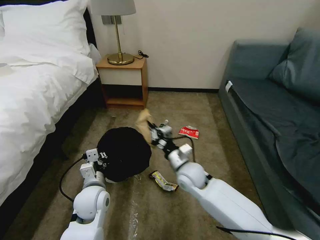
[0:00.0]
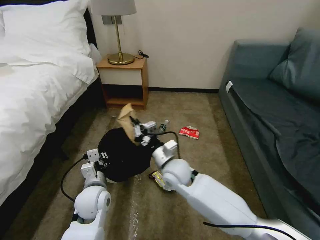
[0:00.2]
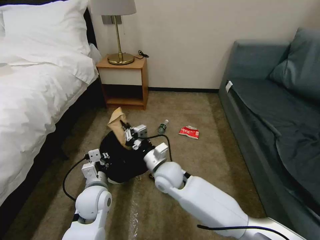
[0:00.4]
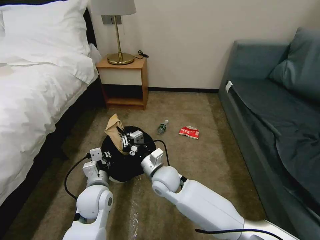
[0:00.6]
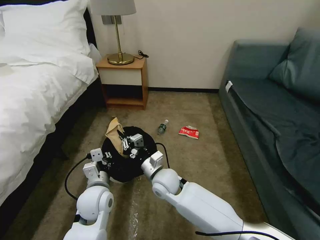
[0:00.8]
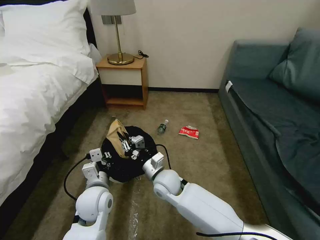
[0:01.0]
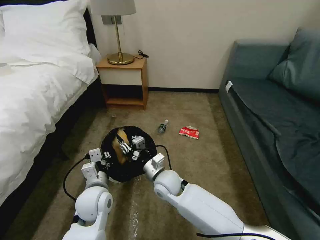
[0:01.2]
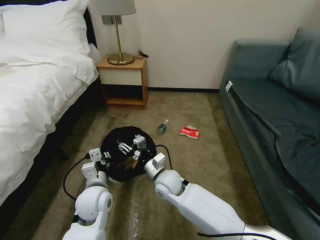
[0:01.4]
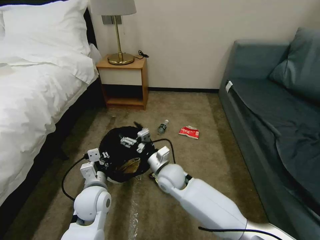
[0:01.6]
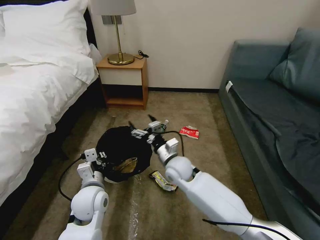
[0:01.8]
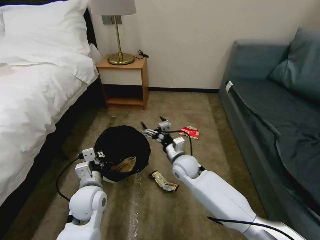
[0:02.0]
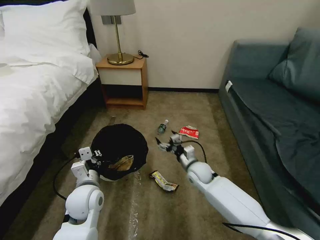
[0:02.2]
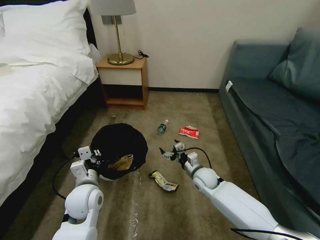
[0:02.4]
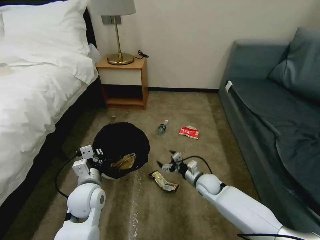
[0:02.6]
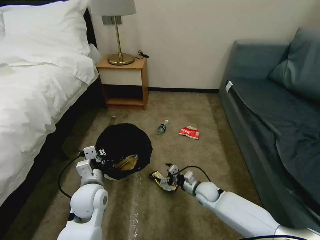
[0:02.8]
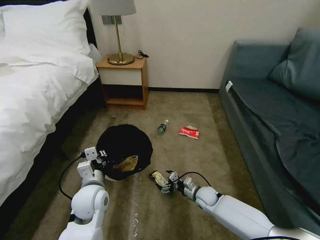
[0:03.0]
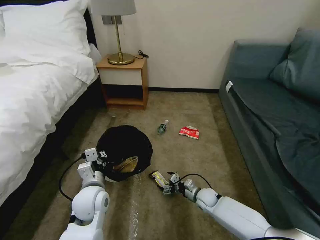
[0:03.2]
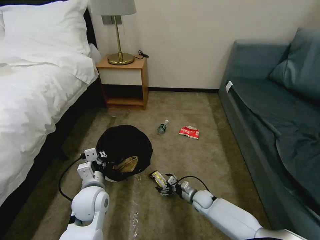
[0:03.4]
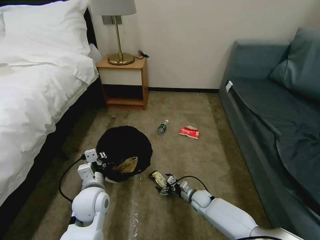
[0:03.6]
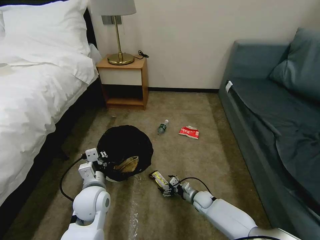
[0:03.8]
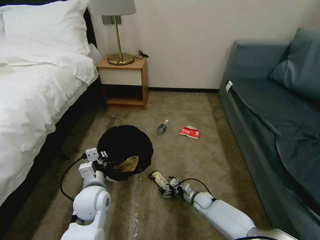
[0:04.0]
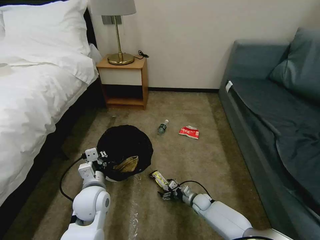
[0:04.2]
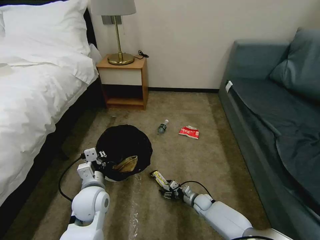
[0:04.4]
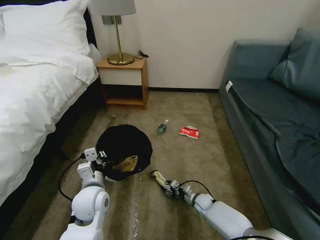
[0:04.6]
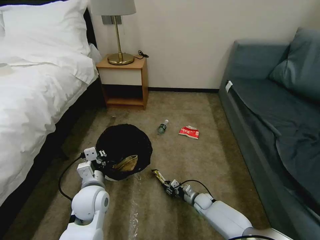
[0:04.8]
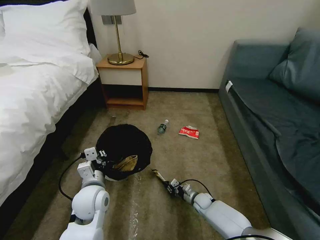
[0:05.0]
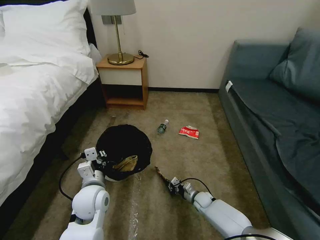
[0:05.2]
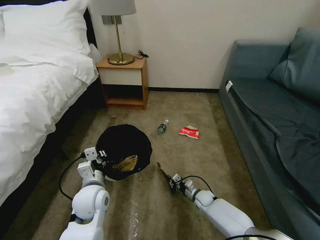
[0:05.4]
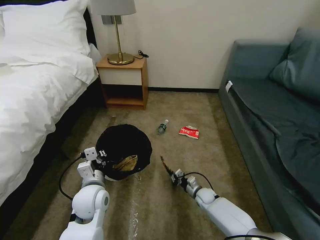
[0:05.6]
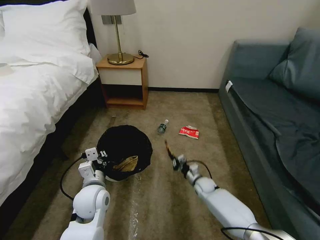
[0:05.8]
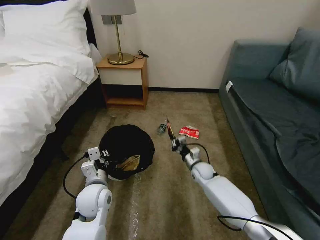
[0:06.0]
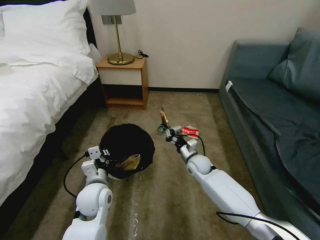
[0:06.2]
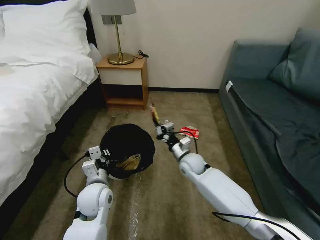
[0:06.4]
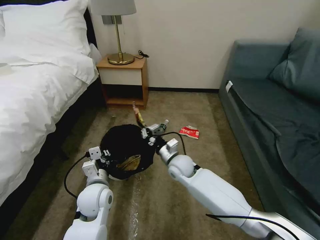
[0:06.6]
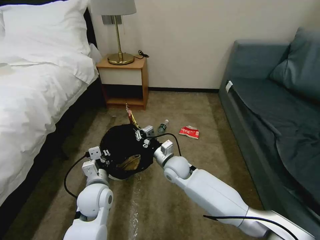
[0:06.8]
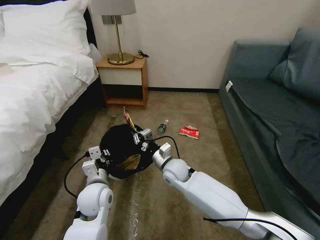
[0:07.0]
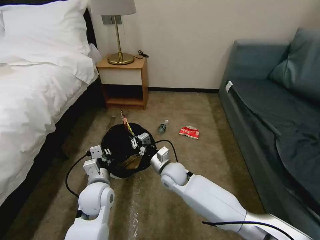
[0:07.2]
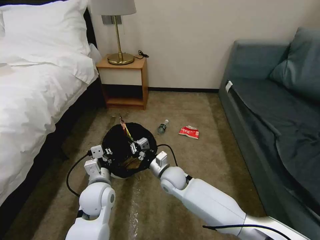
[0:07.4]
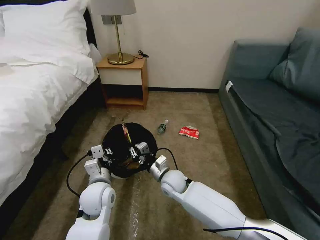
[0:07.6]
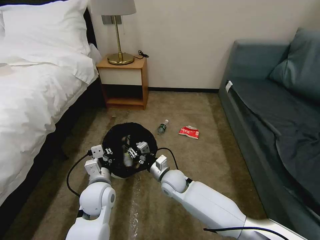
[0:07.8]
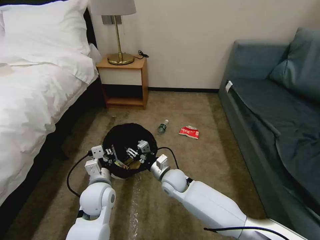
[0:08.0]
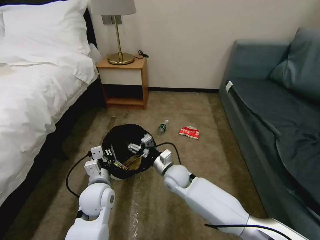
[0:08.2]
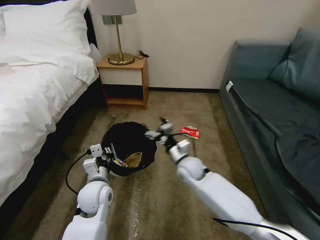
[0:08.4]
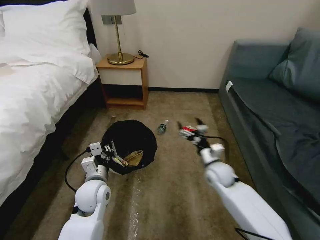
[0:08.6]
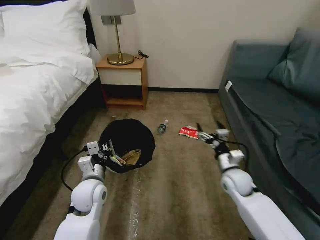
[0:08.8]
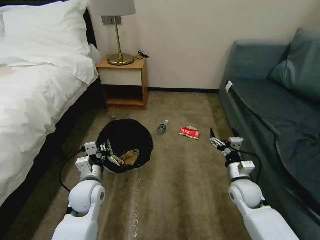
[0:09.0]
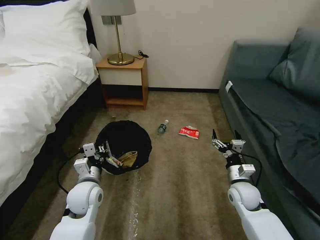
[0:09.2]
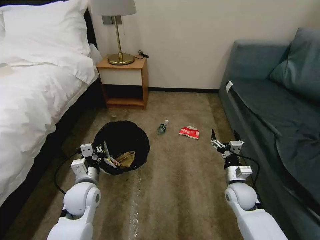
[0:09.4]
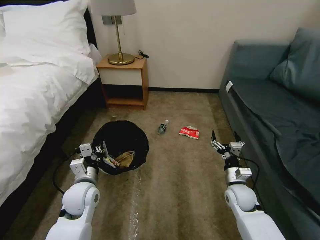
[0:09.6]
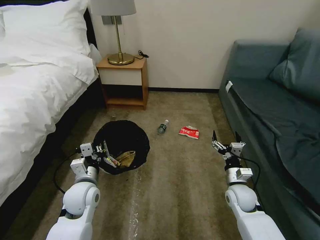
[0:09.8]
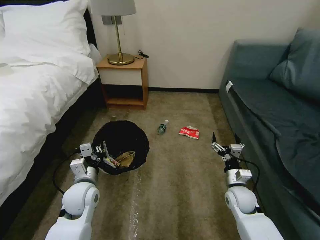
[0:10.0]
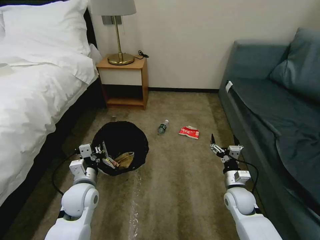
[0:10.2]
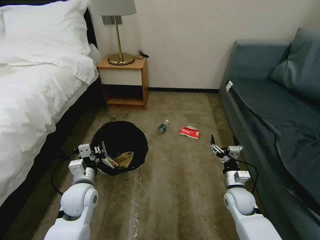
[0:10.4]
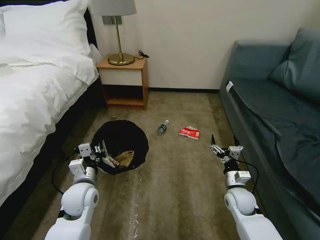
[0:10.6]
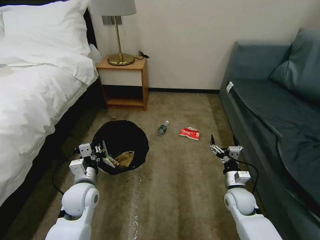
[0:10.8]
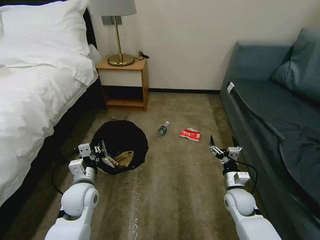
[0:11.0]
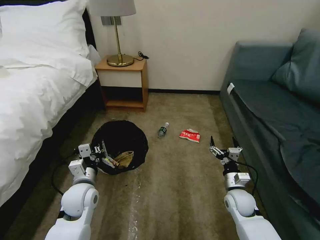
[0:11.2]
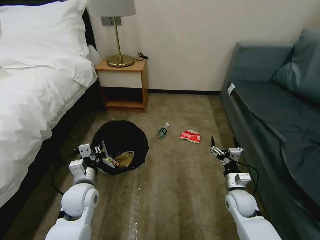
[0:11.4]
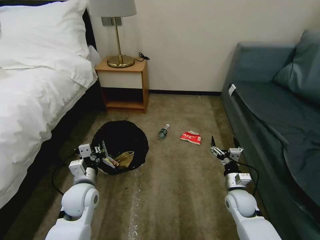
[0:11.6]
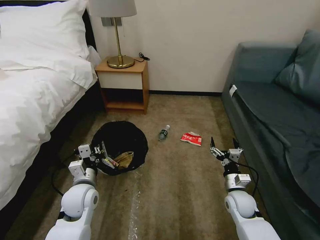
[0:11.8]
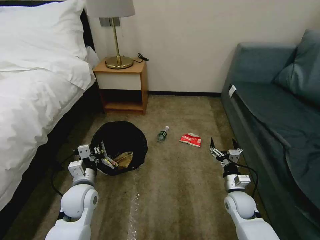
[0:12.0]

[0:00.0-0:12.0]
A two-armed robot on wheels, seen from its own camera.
Task of the whole recording: Pick up the trash bin, then pick up the garbage on the floor and place it into the trash bin.
0:00.0 to 0:01.6: The right gripper heads to the left, covering approximately 10 cm, and opens up.
0:01.6 to 0:03.0: The right gripper goes approximately 25 cm downward and to the right.
0:03.0 to 0:04.4: The right gripper goes roughly 10 cm downward.
0:04.4 to 0:06.0: The right gripper is displaced upward and forward by roughly 20 cm, and closes up.
0:06.0 to 0:07.6: The right gripper travels to the left, backward and upward by some 20 cm.
0:07.6 to 0:09.0: The right gripper moves to the right, about 25 cm, and opens.
0:09.0 to 0:10.4: The grippers stay close to where they were, moving slightly.
0:10.4 to 0:12.0: There are only small adjustments of the grippers.

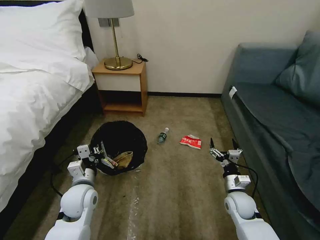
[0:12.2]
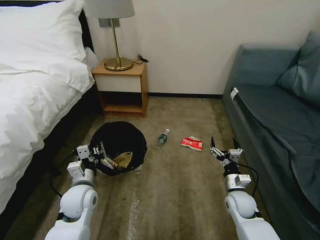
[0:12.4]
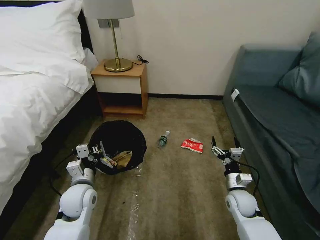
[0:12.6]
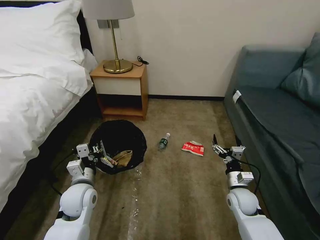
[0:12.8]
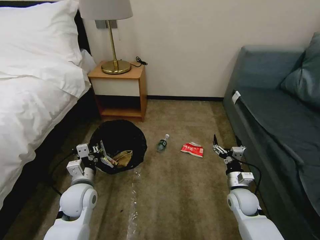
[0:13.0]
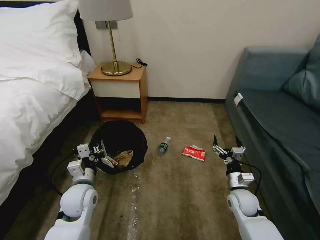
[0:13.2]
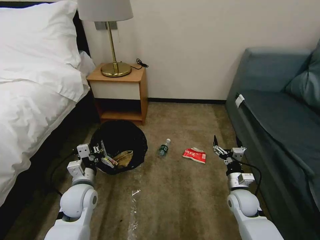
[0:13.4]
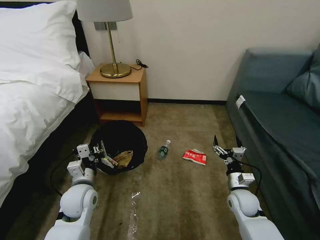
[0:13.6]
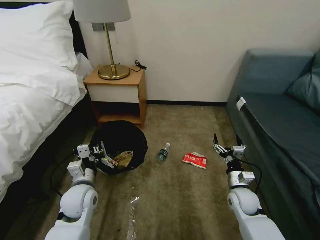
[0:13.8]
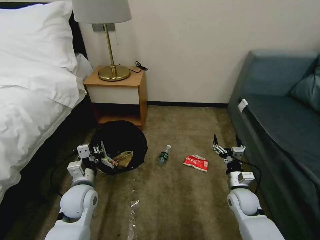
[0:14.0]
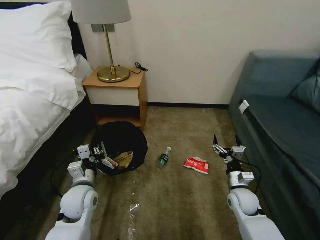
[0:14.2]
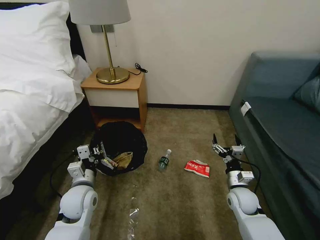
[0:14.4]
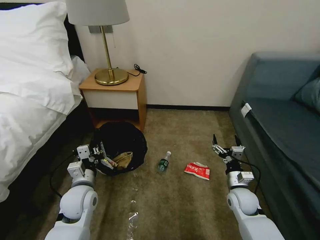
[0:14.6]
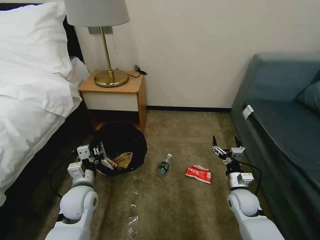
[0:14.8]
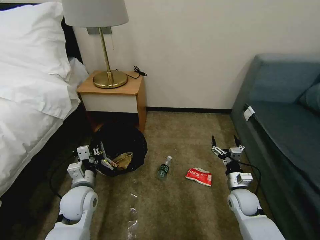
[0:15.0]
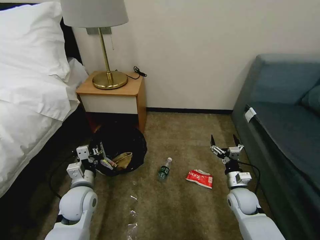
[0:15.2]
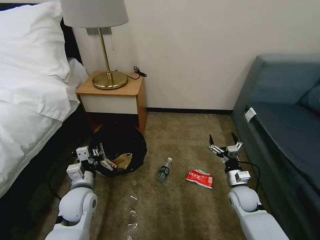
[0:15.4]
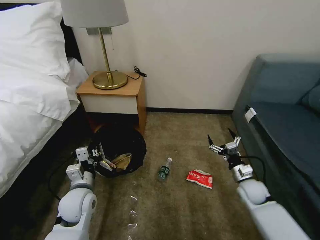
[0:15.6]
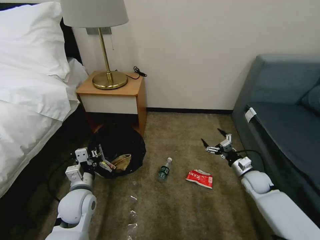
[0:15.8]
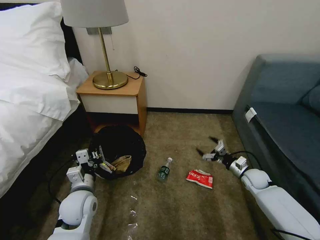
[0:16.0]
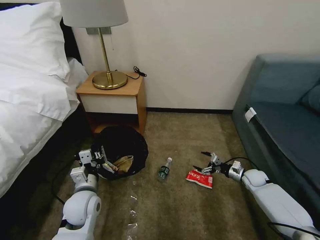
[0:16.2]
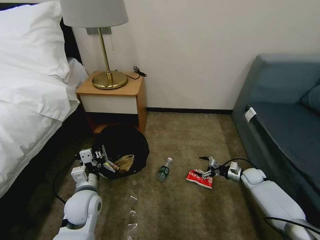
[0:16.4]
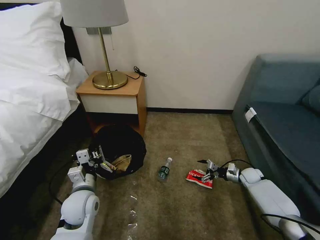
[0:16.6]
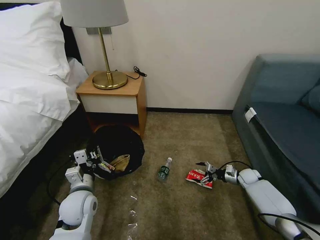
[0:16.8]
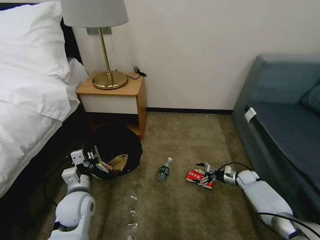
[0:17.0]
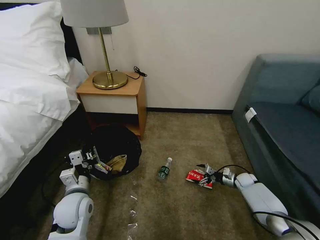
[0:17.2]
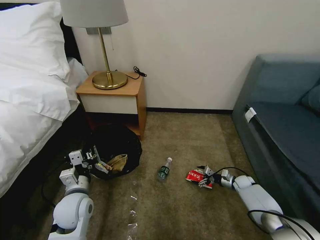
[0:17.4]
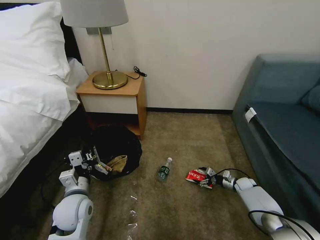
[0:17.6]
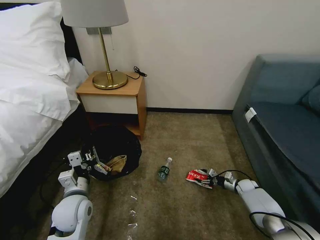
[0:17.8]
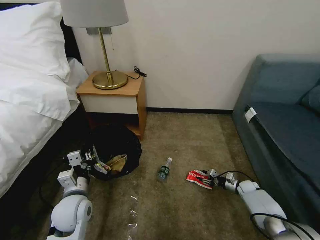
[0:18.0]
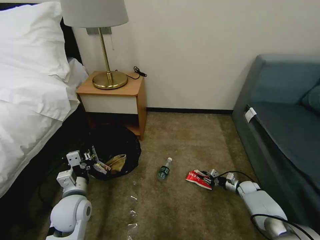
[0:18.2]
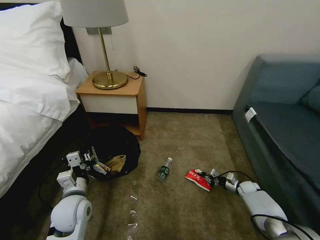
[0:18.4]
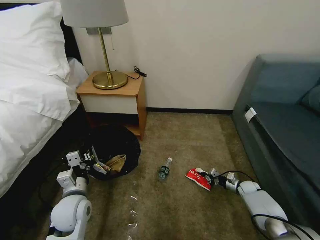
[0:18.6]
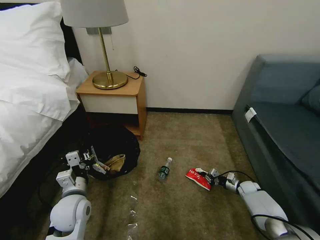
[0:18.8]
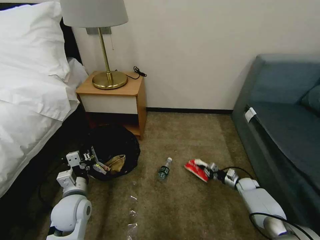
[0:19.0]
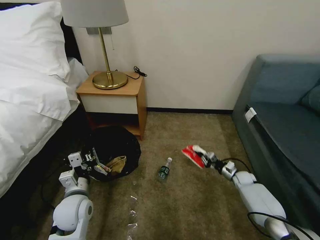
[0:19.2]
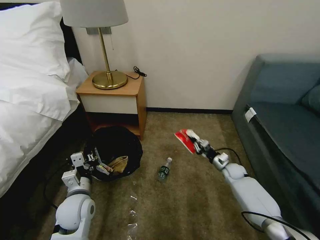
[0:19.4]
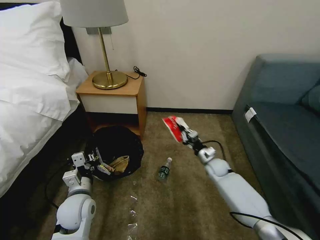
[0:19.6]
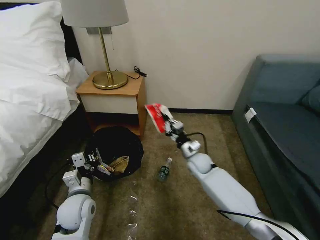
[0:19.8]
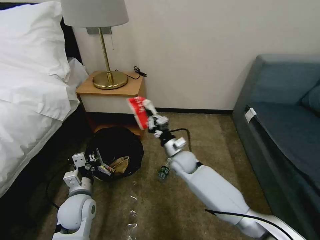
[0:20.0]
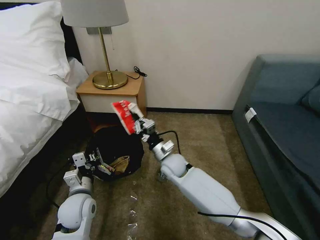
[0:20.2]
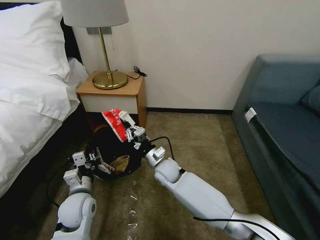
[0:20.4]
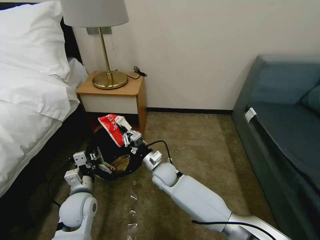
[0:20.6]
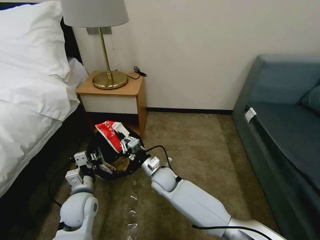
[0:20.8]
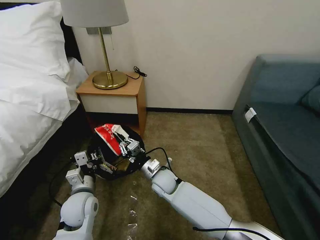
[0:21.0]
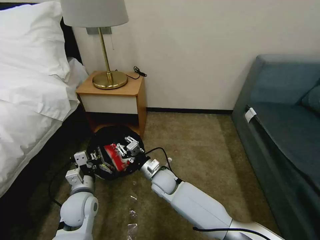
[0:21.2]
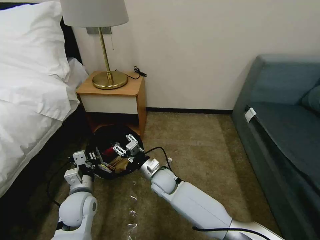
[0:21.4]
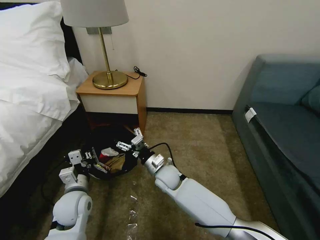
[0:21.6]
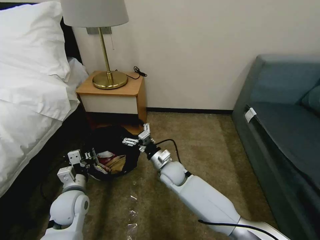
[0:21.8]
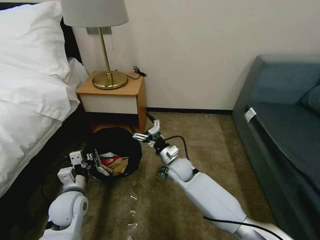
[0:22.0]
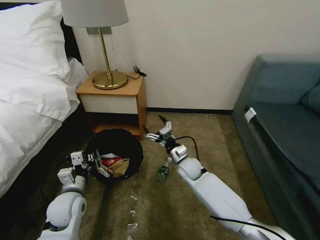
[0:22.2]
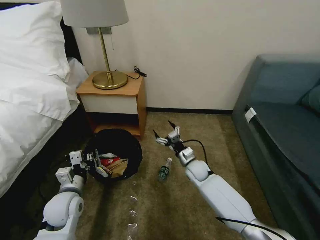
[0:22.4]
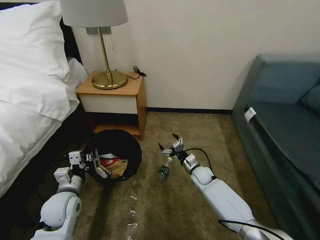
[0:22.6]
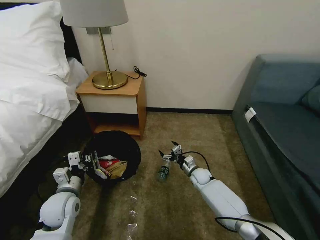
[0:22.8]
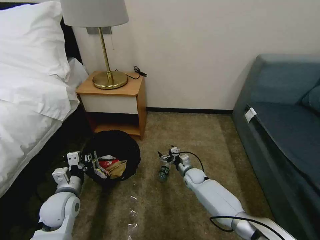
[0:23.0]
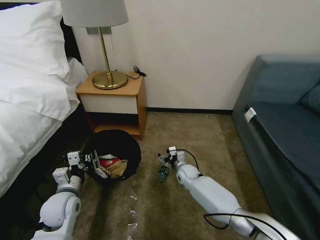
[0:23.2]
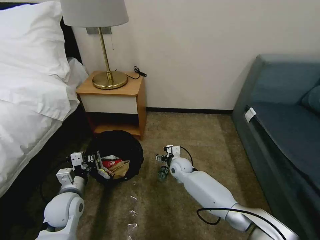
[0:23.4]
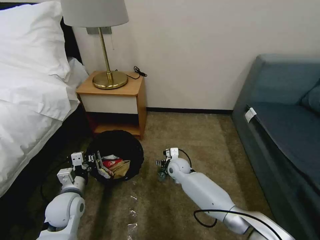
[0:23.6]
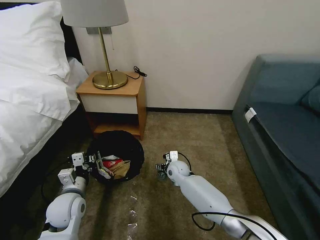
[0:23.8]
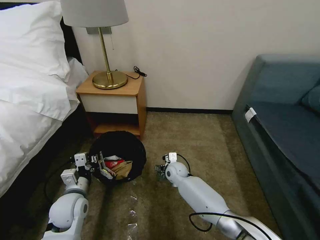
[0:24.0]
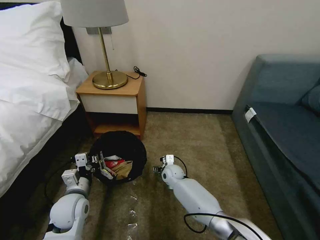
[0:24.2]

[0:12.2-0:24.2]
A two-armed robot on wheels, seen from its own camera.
Task of the whole recording: Pick up the trash bin, then pick up the garbage on the floor and place it into the trash bin.
0:12.2 to 0:15.2: There are only small adjustments of the grippers.
0:15.2 to 0:16.6: The right gripper moves to the right, forward and downward, some 20 cm.
0:16.6 to 0:18.2: The right gripper shifts some 5 cm downward, and closes up.
0:18.2 to 0:19.8: The right gripper goes approximately 35 cm to the left and upward.
0:19.8 to 0:21.2: The right gripper goes approximately 15 cm to the left and backward.
0:21.2 to 0:22.6: The right gripper heads to the right and downward, covering roughly 20 cm, and opens, while the left gripper shifts about 5 cm to the left.
0:22.6 to 0:24.2: The right gripper travels to the left by approximately 15 cm.
